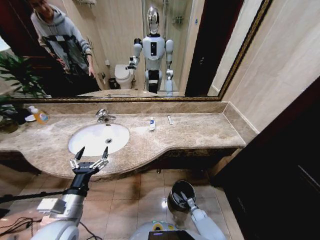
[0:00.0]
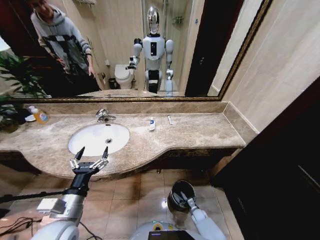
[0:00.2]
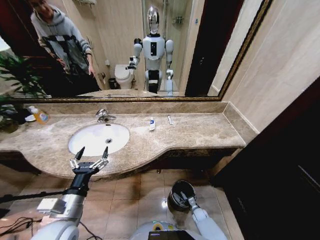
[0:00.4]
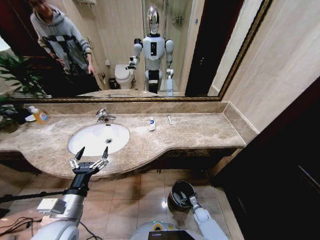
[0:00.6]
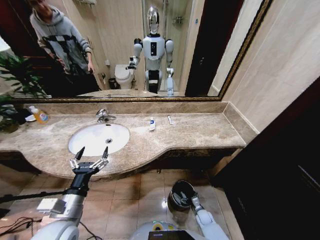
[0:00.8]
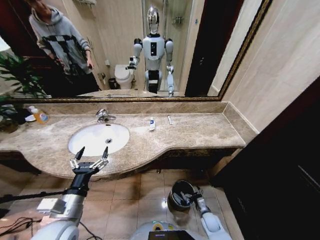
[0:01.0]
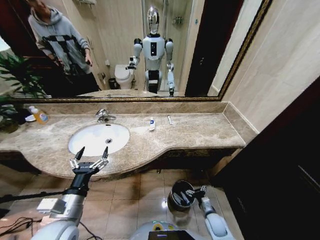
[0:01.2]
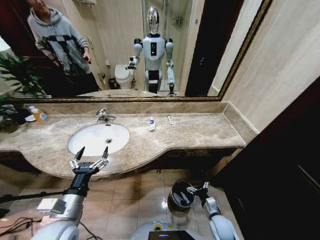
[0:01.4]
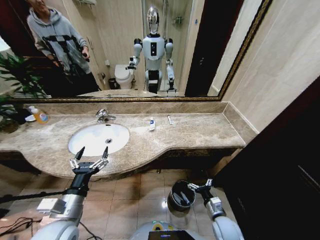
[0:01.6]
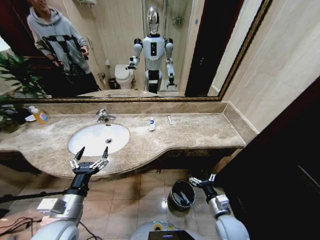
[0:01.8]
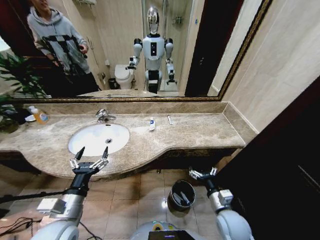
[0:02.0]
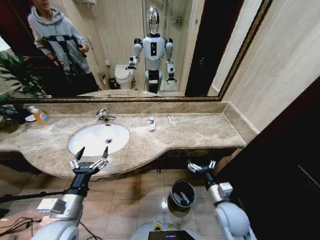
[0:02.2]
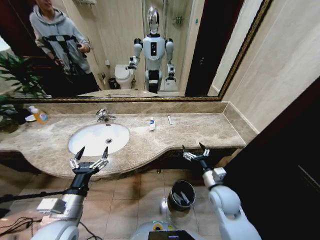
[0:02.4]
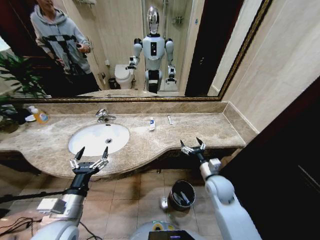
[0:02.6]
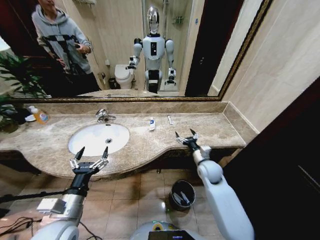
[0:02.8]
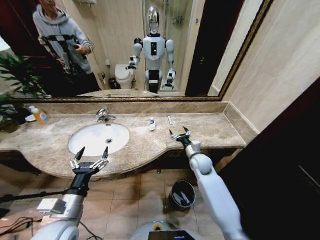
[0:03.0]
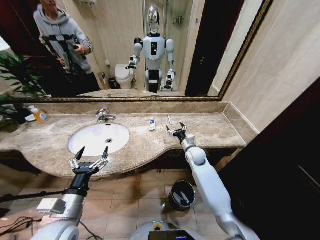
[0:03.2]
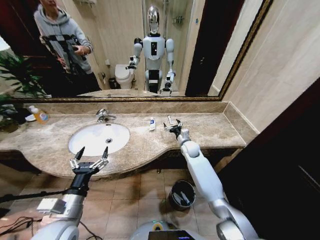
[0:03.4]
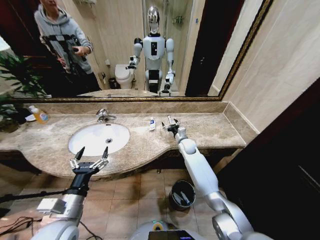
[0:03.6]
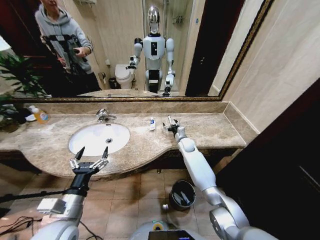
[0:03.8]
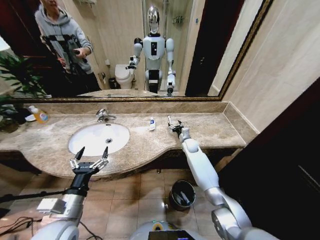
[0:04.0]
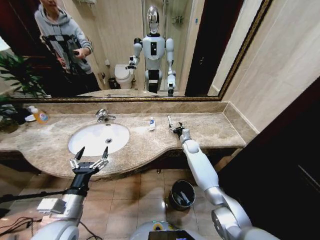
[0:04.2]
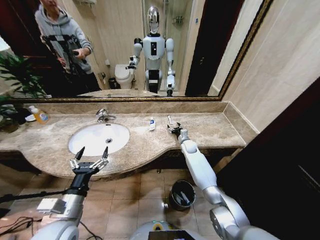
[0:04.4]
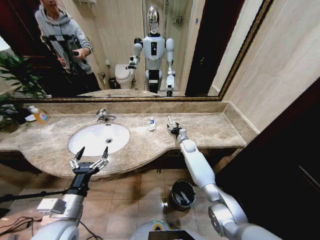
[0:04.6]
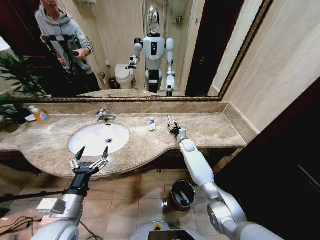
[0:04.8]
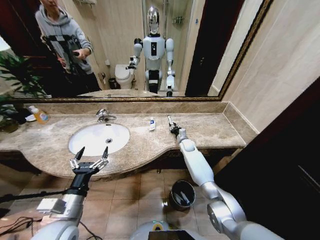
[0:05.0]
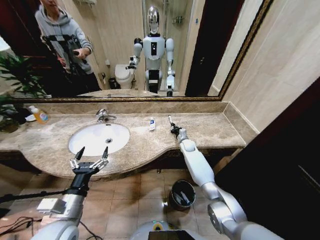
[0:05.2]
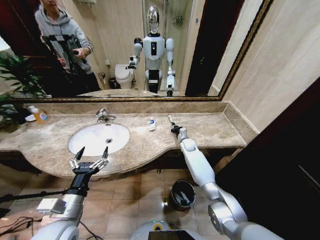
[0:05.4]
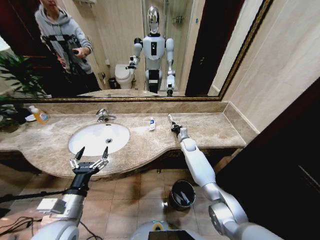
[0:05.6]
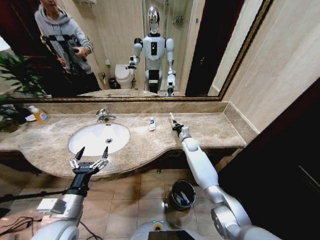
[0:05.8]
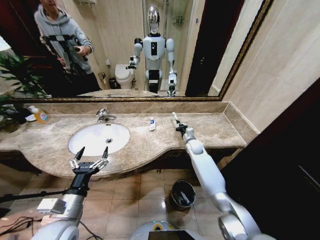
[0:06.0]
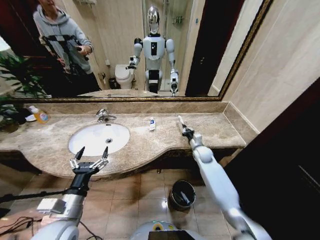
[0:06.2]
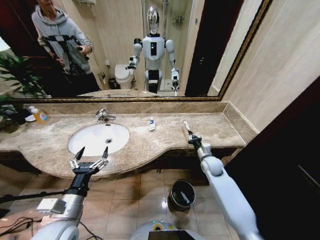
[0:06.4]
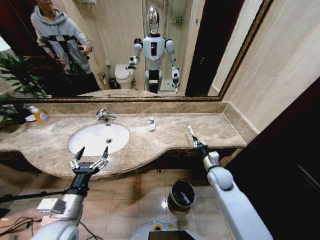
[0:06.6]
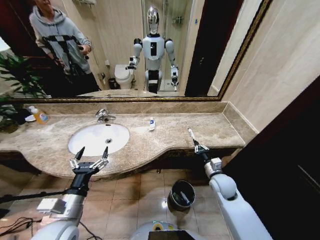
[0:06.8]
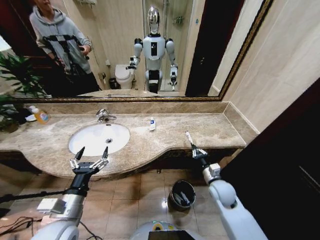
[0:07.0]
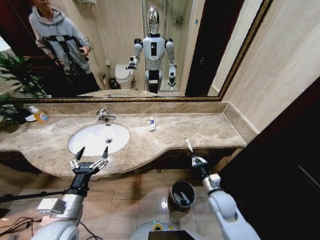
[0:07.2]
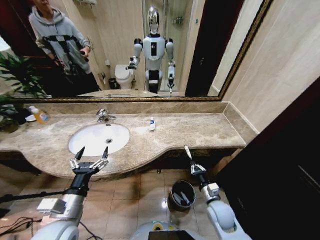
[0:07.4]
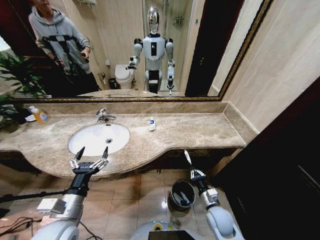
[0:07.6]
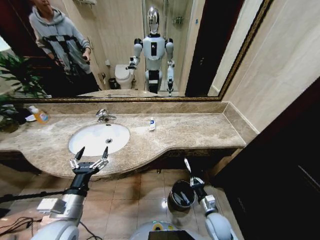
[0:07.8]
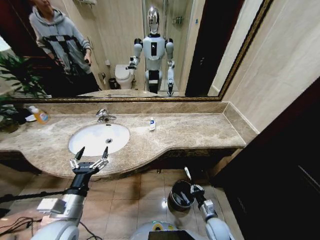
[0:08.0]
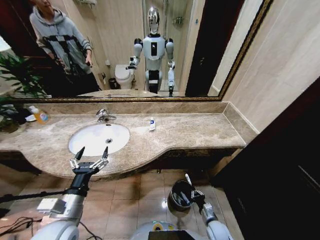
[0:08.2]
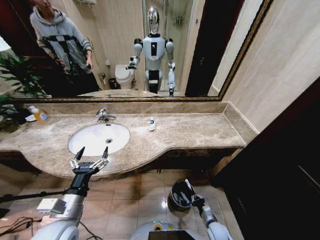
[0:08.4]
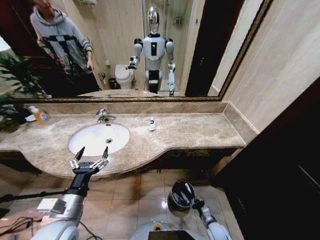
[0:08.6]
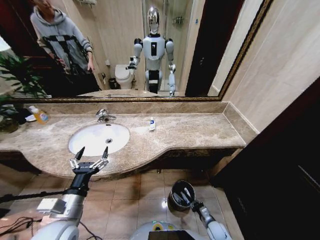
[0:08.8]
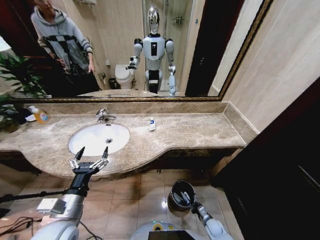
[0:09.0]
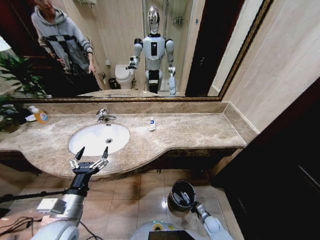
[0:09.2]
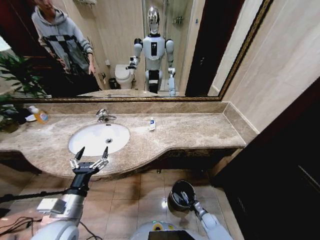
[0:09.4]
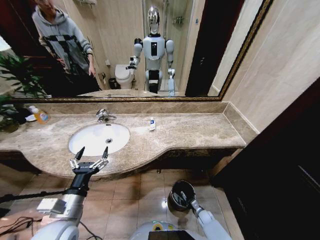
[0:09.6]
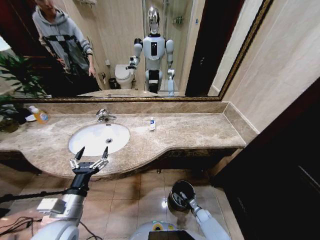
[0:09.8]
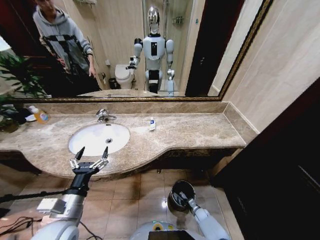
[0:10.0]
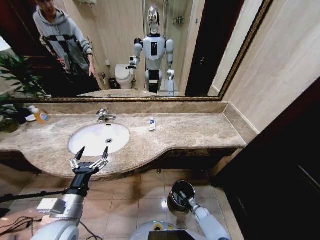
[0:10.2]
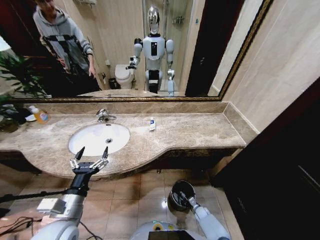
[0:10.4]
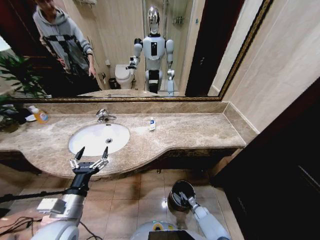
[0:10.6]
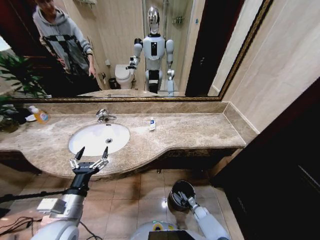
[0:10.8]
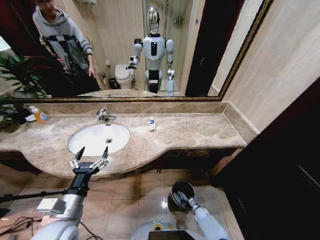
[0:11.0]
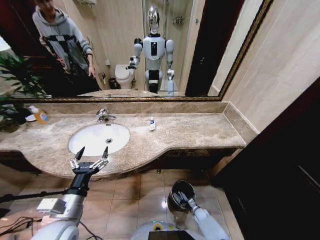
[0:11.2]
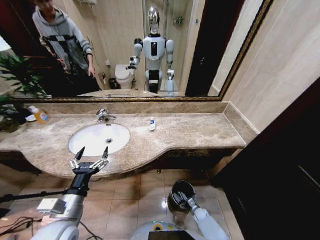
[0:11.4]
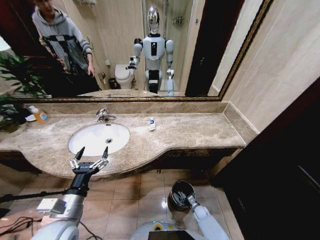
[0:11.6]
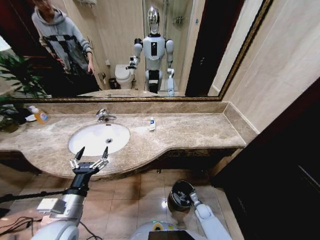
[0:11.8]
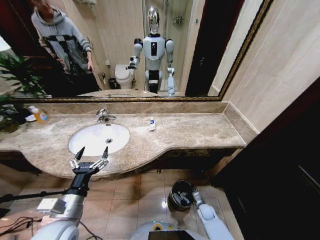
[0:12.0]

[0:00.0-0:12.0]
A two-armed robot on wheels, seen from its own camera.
Task of the whole recording: Pick up the trash from the sink and place it in the trash bin.
0:00.0 to 0:01.6: The right gripper shifts approximately 25 cm upward.
0:01.6 to 0:03.0: The right gripper is displaced forward and upward by about 25 cm.
0:03.0 to 0:04.4: The right gripper heads forward, covering roughly 15 cm.
0:04.4 to 0:06.0: The right gripper closes.
0:06.0 to 0:07.6: The right gripper shifts roughly 35 cm backward.
0:07.6 to 0:09.0: The right gripper heads downward, covering roughly 20 cm.
0:09.0 to 0:10.4: The right gripper heads forward, covering about 5 cm.
0:10.4 to 0:12.0: The right gripper travels upward by about 10 cm, and opens.

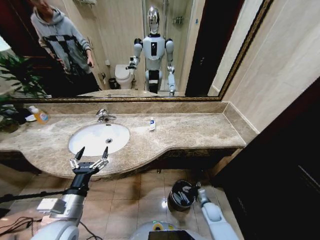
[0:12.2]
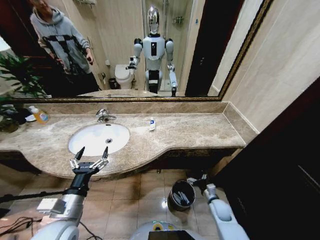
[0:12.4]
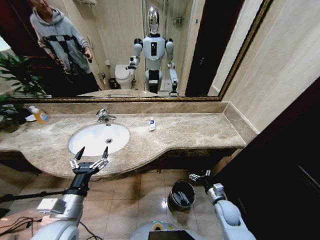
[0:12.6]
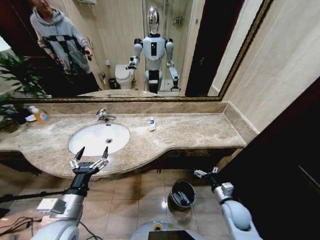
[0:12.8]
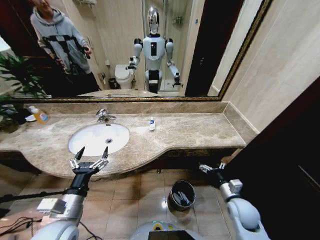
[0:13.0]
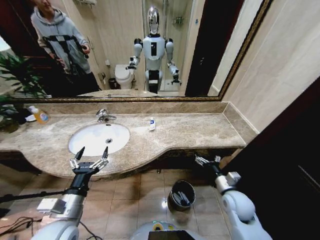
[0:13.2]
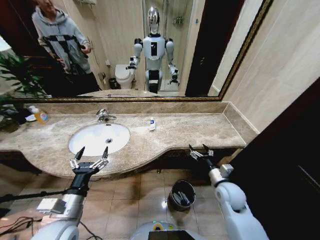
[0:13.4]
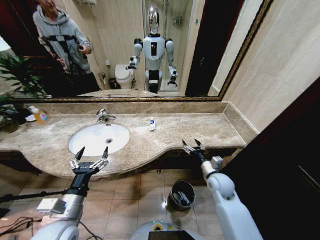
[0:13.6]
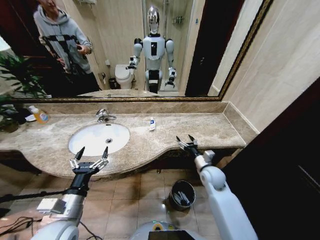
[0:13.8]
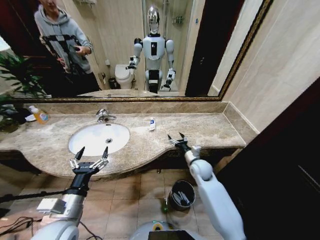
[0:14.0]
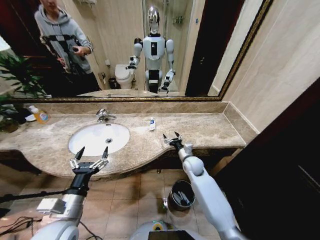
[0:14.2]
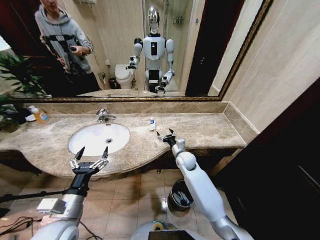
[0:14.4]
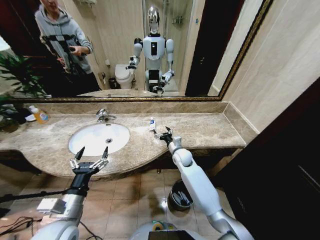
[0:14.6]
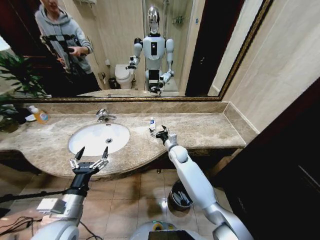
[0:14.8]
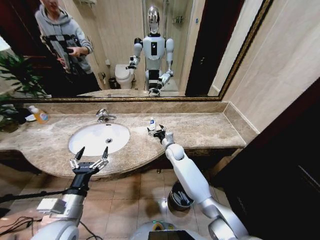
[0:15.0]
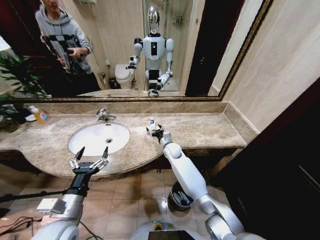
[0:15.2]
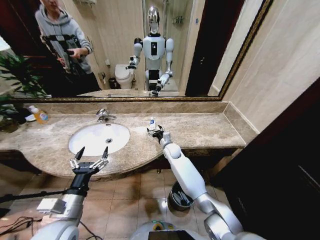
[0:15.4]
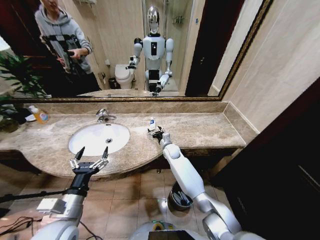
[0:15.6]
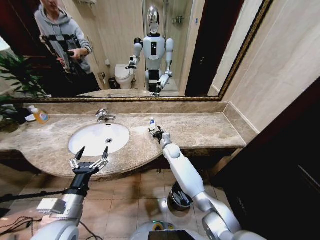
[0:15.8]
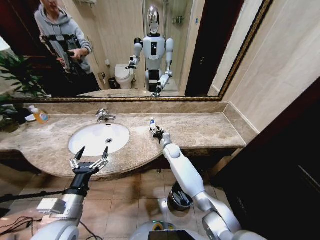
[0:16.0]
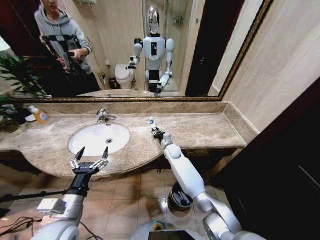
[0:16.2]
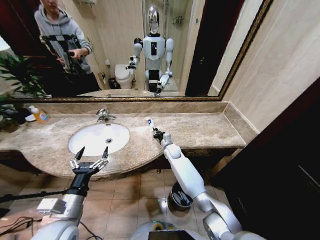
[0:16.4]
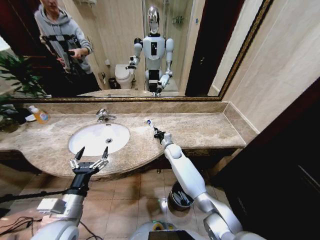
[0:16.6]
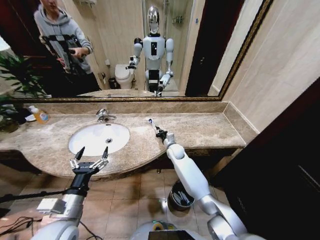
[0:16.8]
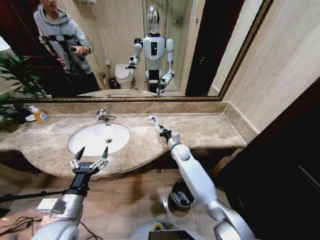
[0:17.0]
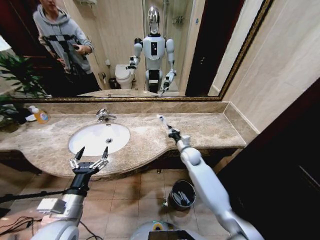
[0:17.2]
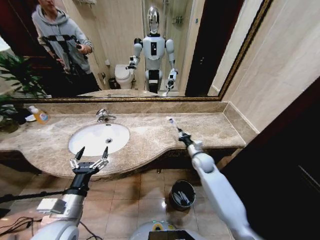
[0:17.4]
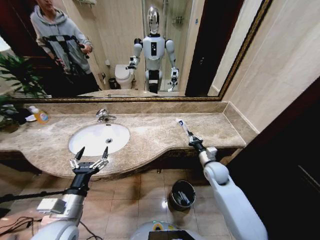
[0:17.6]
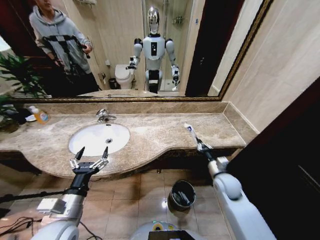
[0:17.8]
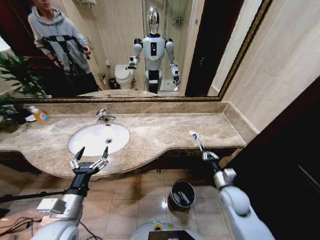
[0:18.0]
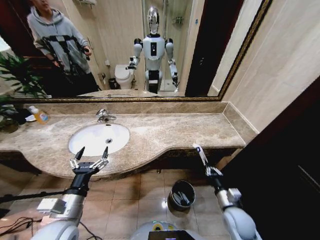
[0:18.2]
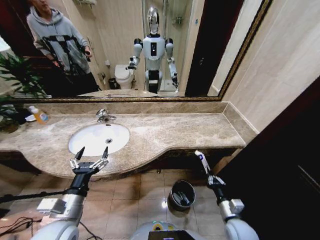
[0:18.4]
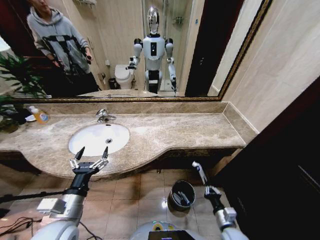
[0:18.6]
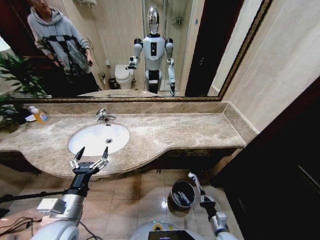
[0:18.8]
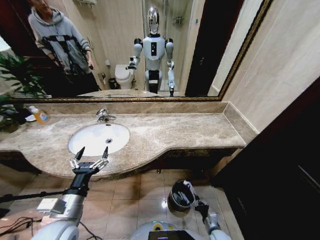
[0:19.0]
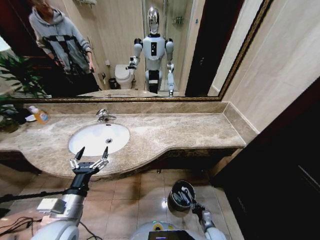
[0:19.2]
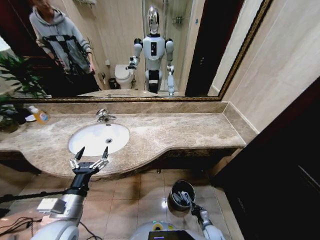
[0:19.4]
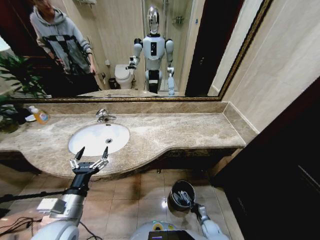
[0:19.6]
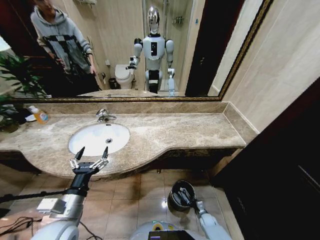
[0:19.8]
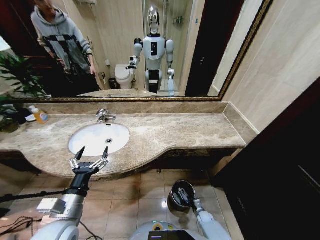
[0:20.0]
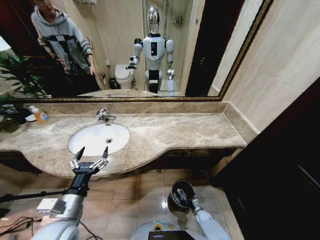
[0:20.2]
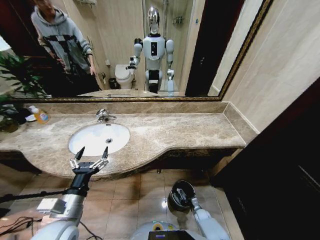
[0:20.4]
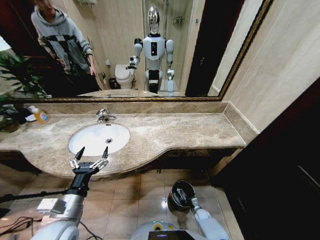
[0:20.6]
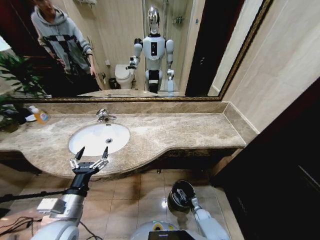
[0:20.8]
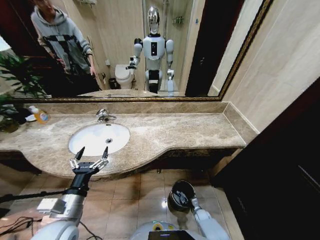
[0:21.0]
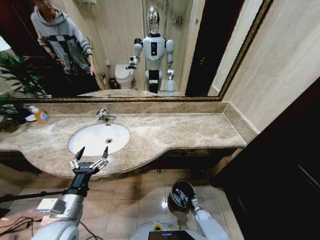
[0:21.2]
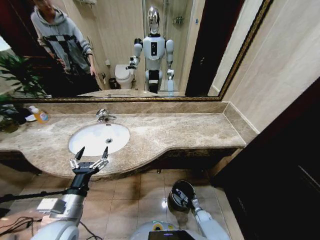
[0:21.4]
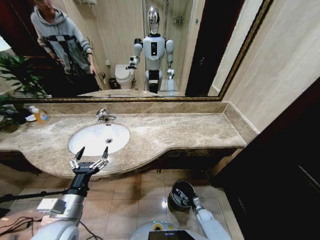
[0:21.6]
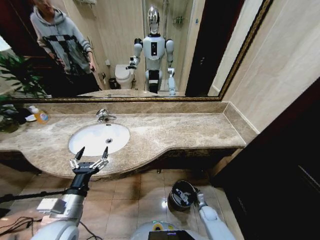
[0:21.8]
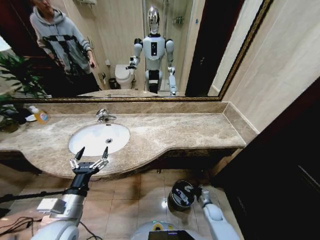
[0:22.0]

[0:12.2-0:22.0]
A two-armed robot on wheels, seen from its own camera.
Task of the whole recording: Pick up the trash from the sink and place it in the trash bin.
0:12.2 to 0:13.6: The right gripper shifts roughly 25 cm upward.
0:13.6 to 0:15.0: The right gripper moves forward and to the left, approximately 25 cm.
0:15.0 to 0:16.4: The right gripper closes its fingers.
0:16.4 to 0:17.8: The right gripper shifts approximately 30 cm backward and to the right.
0:17.8 to 0:19.2: The right gripper is displaced downward and backward by roughly 35 cm.
0:19.2 to 0:20.6: The right gripper travels forward and downward by some 15 cm.
0:20.6 to 0:22.0: The right gripper heads upward, covering approximately 10 cm, and opens its fingers.
